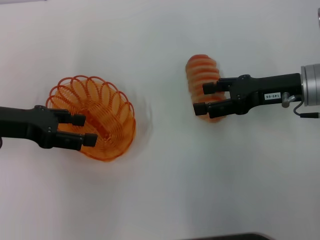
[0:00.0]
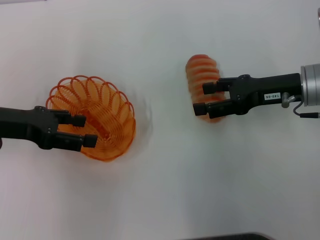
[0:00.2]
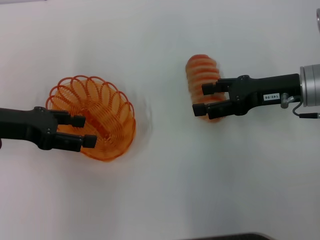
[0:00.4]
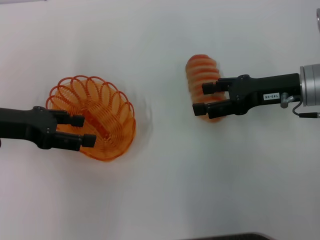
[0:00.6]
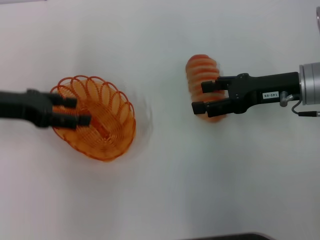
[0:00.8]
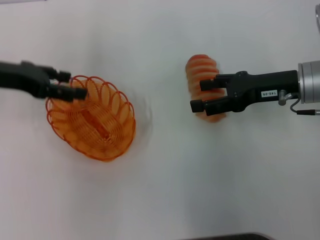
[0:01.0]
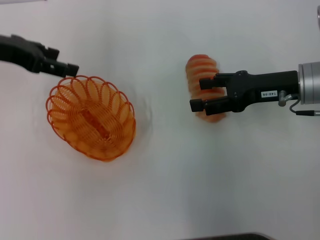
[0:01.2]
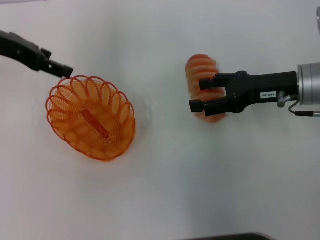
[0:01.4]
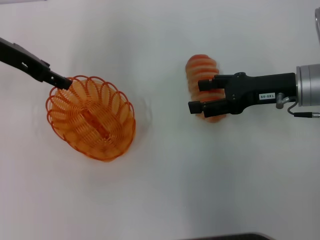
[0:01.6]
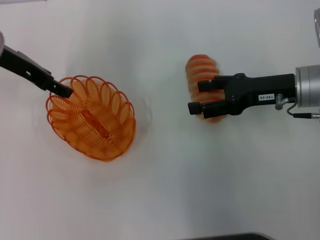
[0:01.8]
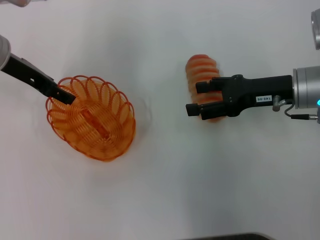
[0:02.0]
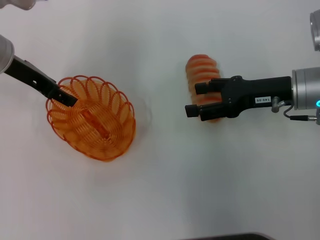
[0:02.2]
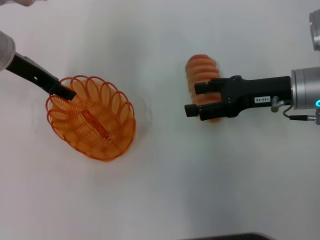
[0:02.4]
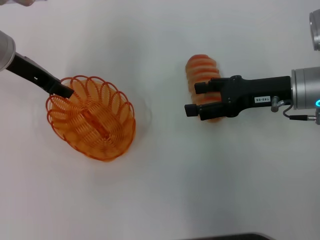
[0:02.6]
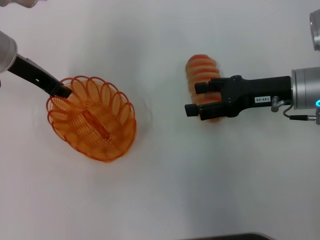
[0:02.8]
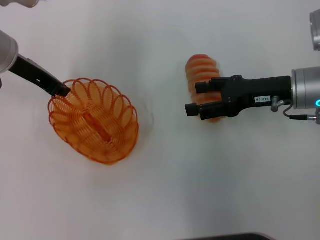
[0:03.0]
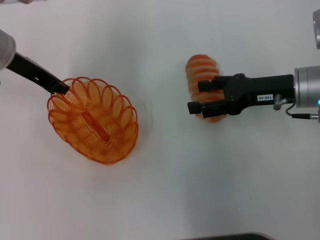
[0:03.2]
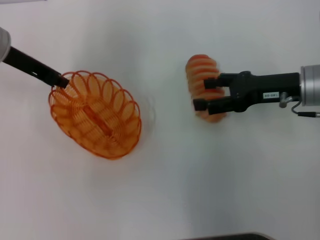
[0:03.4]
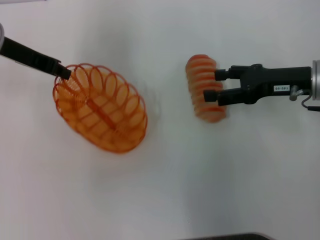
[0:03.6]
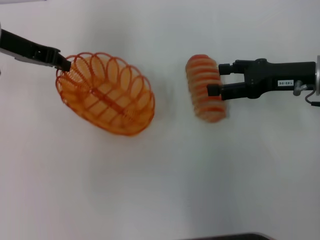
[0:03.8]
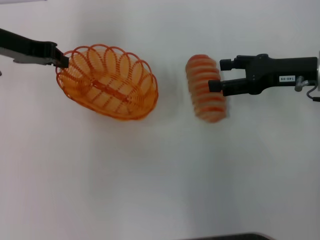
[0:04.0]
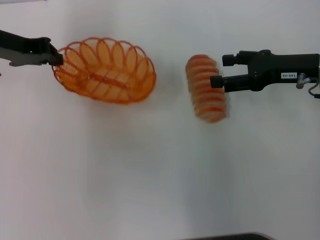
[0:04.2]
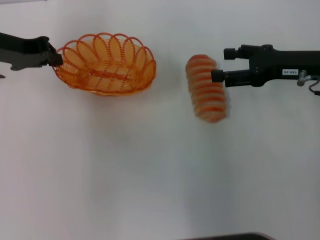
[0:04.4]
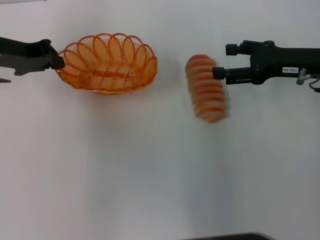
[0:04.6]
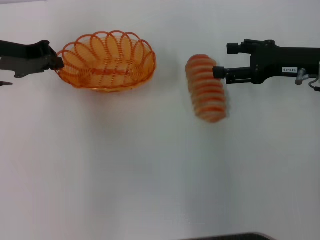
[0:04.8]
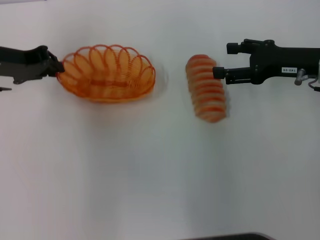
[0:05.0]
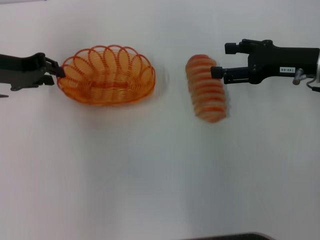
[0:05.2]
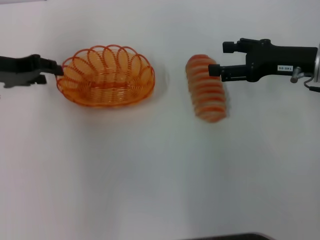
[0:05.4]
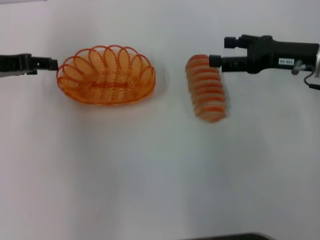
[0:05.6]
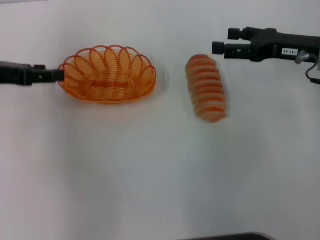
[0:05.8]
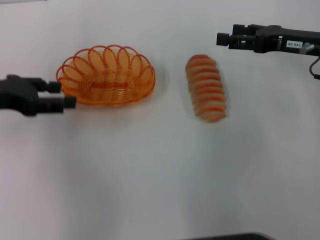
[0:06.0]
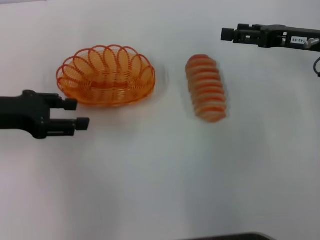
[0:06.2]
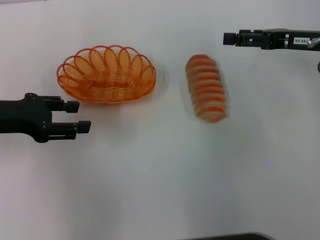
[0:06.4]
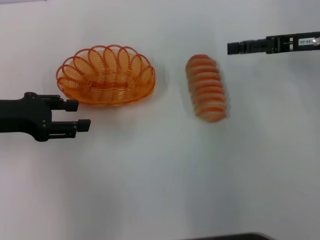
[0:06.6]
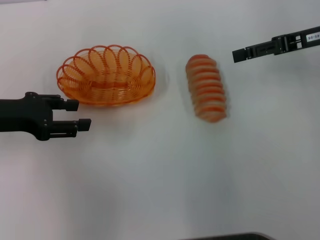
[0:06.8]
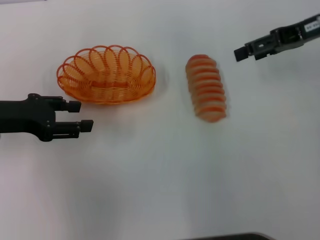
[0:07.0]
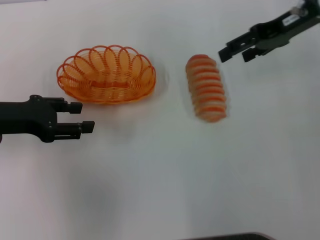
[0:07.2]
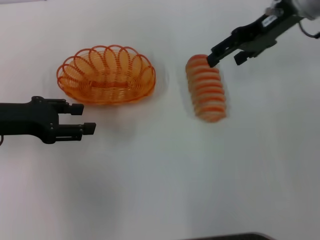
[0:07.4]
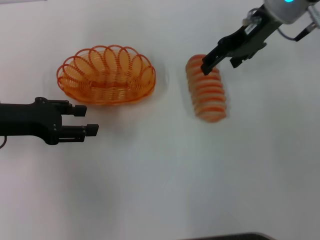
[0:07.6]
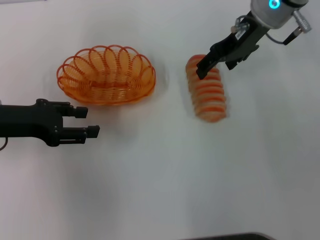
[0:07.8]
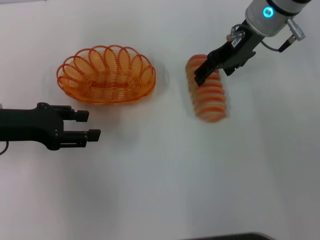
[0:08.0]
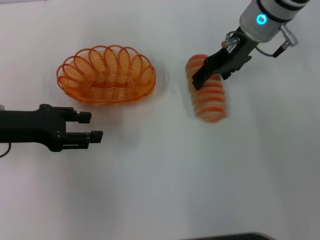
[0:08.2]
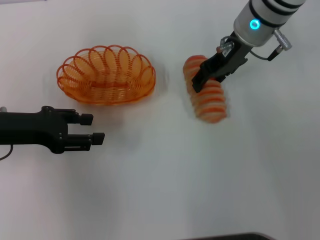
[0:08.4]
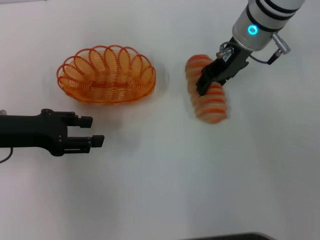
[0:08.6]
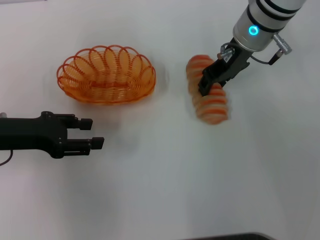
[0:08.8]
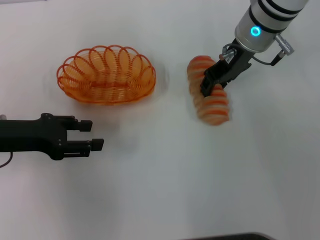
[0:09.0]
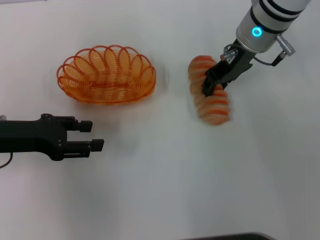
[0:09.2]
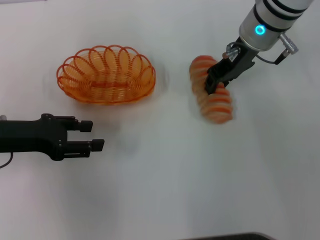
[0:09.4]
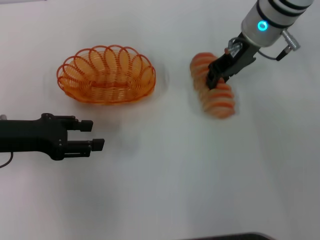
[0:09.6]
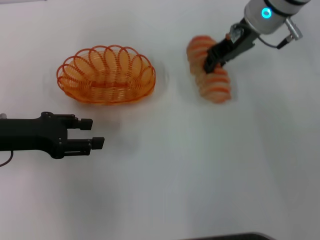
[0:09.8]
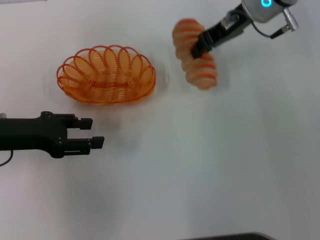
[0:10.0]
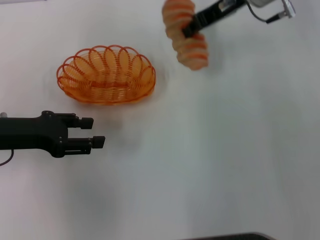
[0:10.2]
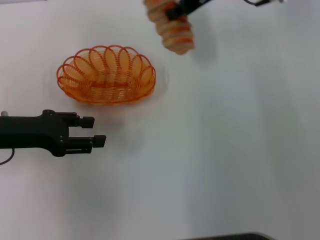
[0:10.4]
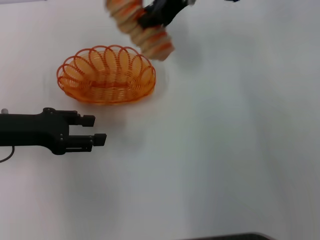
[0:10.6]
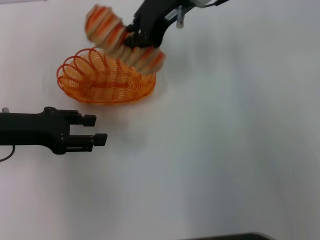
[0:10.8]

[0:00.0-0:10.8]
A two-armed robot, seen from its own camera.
Step, 0.0 to 3.6 s: Pick up the basket with the left gripper.
Step, 3.8 to 6.0 s: Place the basket in the center of view with the left gripper.
Step, 6.2 to 9.6 s: Pick up the long bread with the right gripper.
0.0 to 1.6 s: The left gripper moves forward and upward, roughly 10 cm.
1.6 to 3.0 s: The left gripper closes up.
4.6 to 6.2 s: The left gripper moves backward, roughly 10 cm, and opens its fingers.
6.2 to 7.8 s: The right gripper is displaced to the left, forward and upward by about 15 cm.
7.8 to 9.2 s: The right gripper closes.
9.2 to 10.8 s: The right gripper heads to the left and upward, covering roughly 10 cm, and closes.

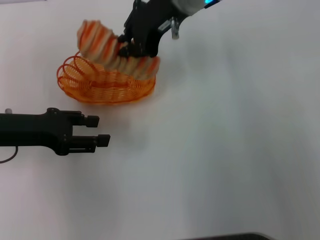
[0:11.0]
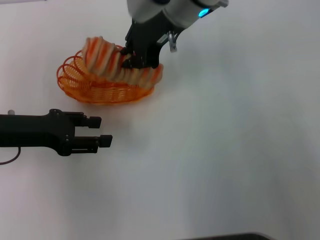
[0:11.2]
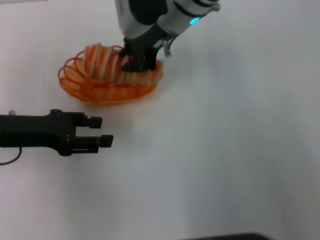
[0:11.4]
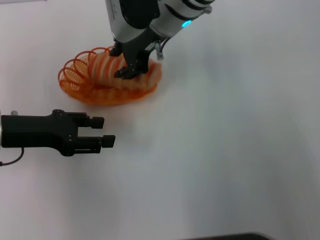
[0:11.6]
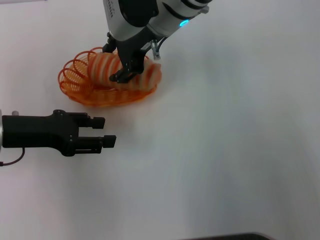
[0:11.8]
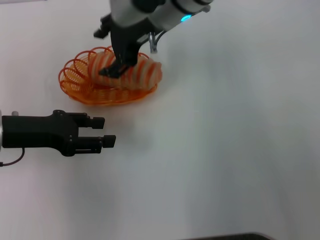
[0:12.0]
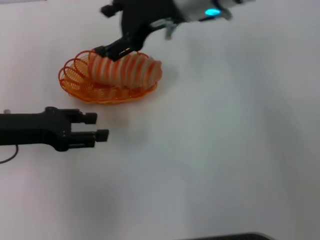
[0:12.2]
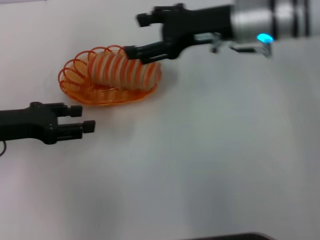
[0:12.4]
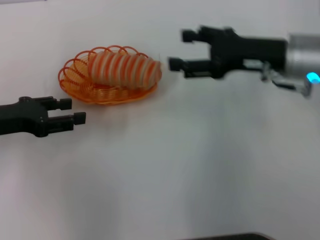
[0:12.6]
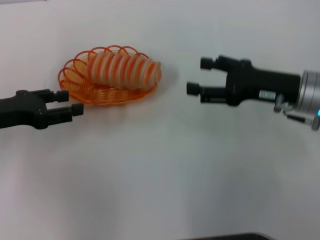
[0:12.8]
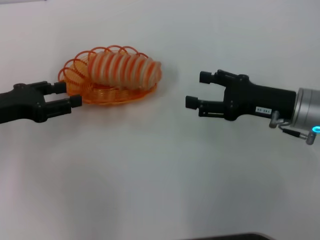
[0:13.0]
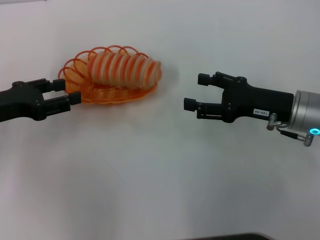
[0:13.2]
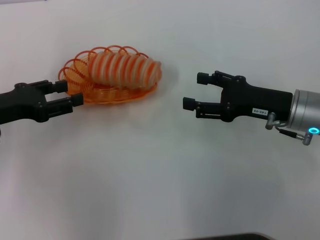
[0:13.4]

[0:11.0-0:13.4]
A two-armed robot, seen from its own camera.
Step, 11.0 to 12.4 s: Place the long bread into the basket with the right gripper.
11.0 to 12.2 s: The right gripper opens up.
12.2 to 13.4 s: The right gripper is displaced to the right, downward and backward by some 25 cm.

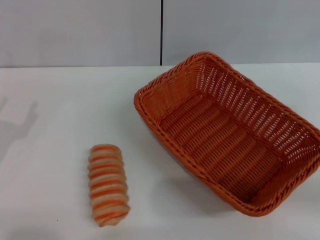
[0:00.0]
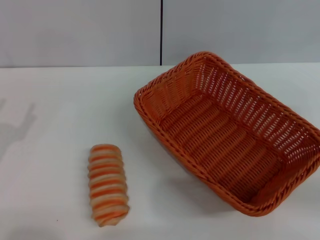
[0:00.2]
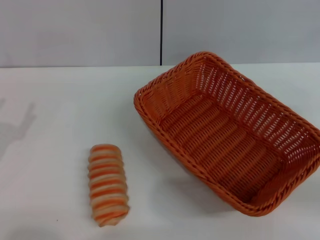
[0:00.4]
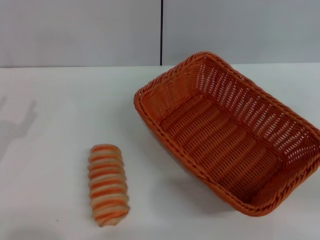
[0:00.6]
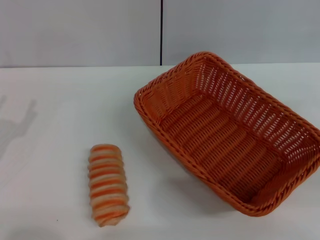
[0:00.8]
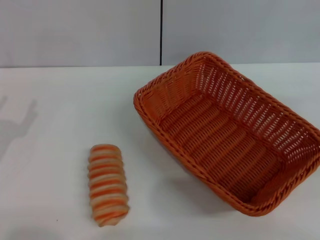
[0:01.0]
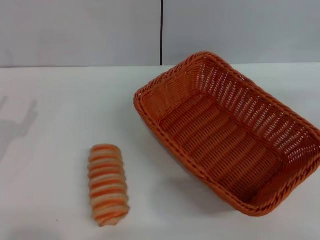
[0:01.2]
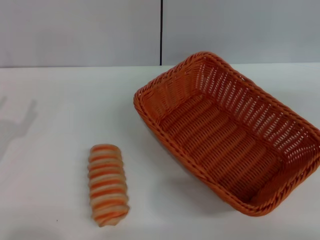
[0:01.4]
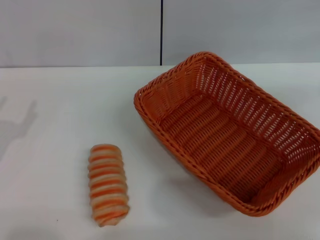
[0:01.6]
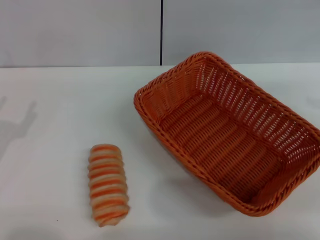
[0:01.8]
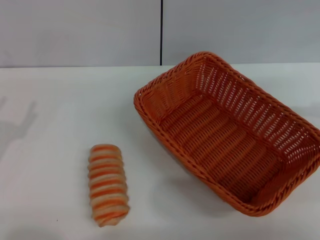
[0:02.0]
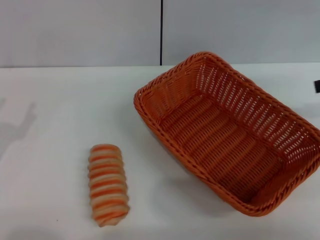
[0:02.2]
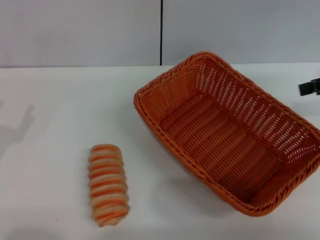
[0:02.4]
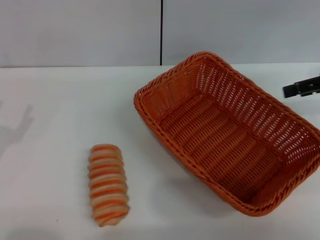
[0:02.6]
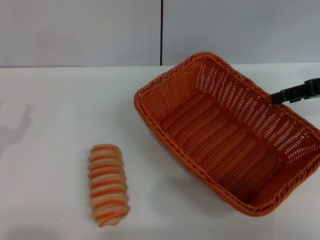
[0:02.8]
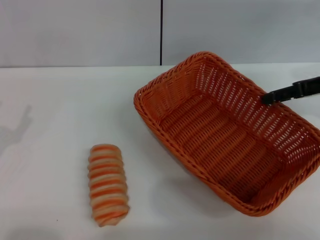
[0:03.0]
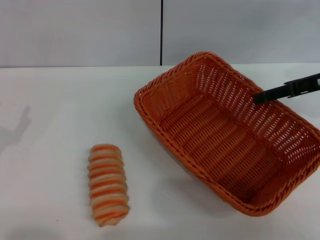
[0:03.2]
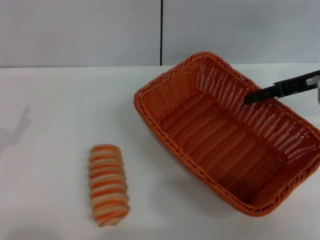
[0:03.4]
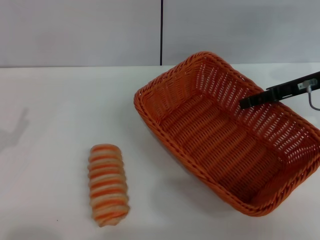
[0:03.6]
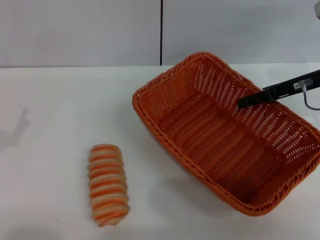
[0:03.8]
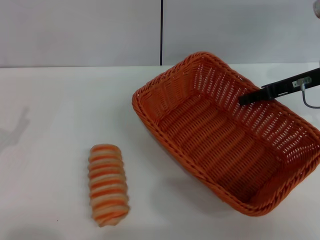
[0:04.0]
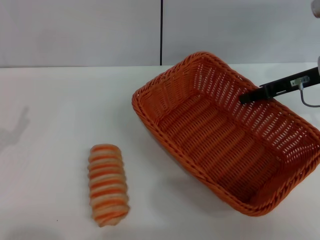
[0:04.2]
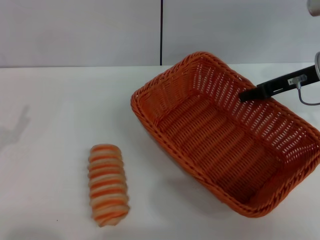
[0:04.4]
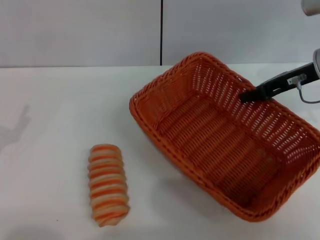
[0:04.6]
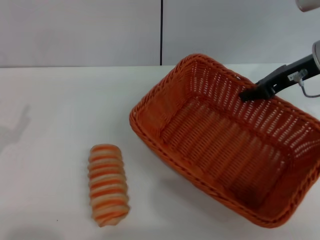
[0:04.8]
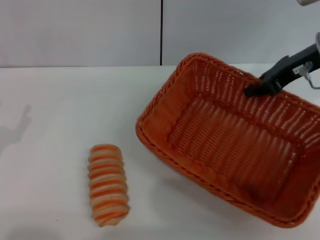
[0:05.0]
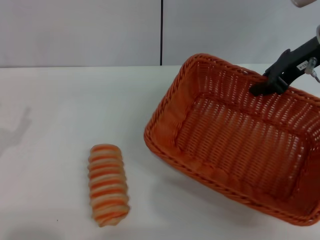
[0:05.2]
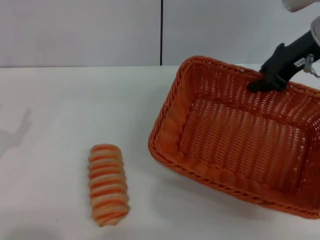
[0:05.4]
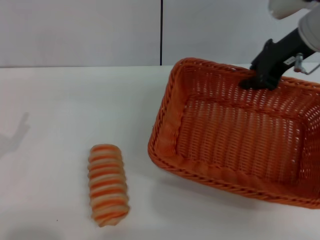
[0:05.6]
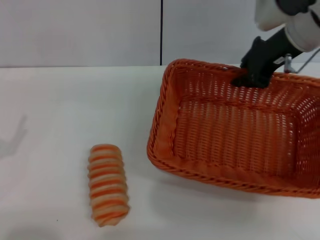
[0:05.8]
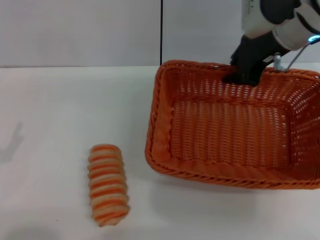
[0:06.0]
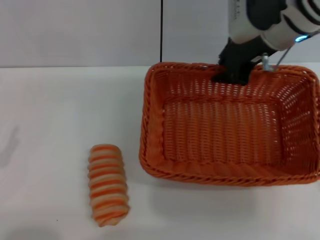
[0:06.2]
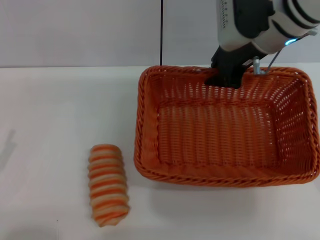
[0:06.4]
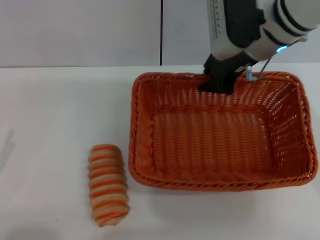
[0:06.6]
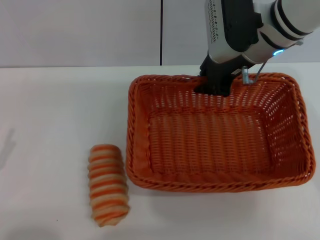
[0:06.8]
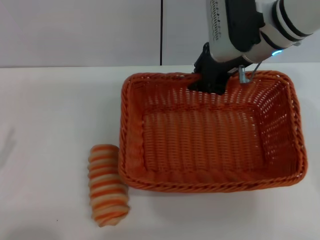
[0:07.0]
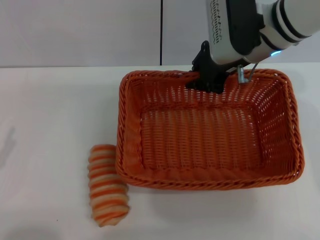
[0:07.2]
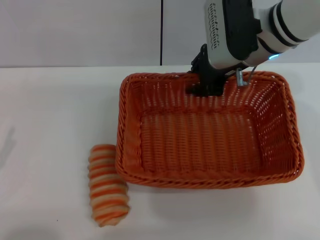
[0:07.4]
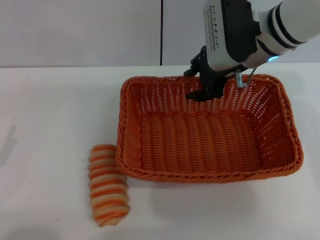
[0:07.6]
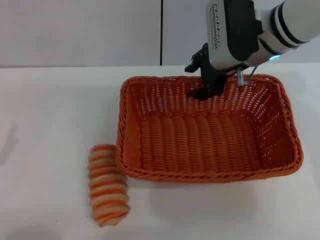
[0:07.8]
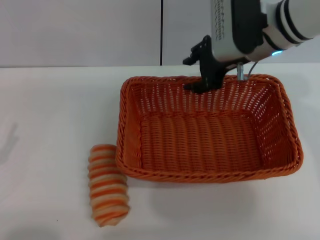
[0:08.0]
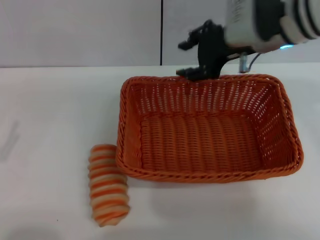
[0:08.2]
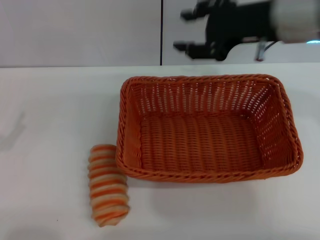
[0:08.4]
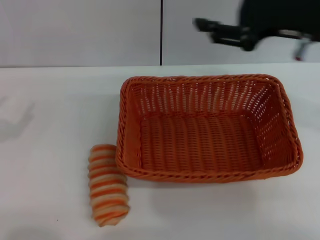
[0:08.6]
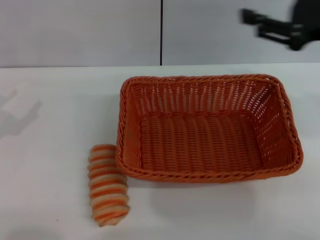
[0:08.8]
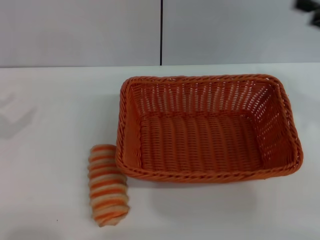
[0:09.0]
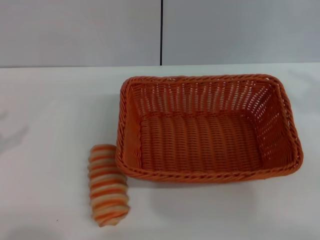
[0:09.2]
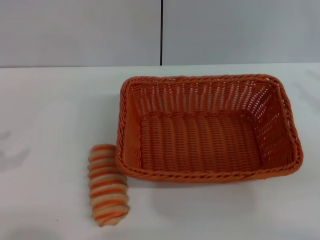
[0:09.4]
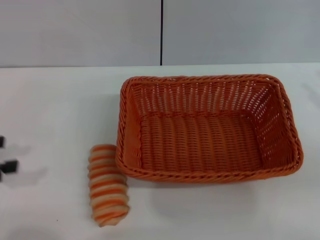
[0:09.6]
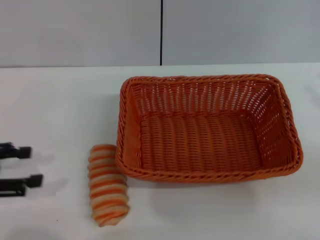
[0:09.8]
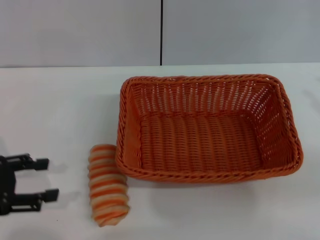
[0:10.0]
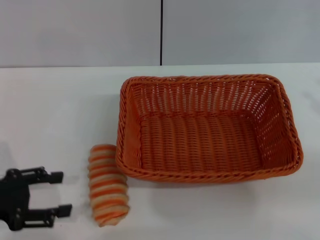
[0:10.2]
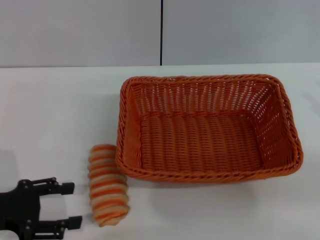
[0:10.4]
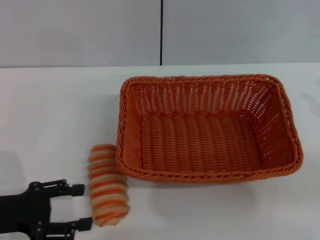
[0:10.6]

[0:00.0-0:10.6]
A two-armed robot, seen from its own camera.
Step, 0.0 to 5.2 s: Pick up the light basket with the right gripper.
Step, 5.4 to 7.8 s: Place the light basket in the center of view with the right gripper.
1.6 to 3.0 s: The right gripper travels to the left, downward and forward by approximately 15 cm.
3.0 to 4.6 s: The right gripper travels to the left by roughly 5 cm, and closes its fingers.
4.6 to 6.0 s: The right gripper heads to the left and upward, covering about 10 cm.
6.0 to 7.6 s: The right gripper changes place by about 5 cm.
7.6 to 9.0 s: The right gripper goes about 25 cm to the right and backward, and opens; the left gripper heads forward and upward, covering about 10 cm.
9.0 to 10.6 s: The left gripper shifts roughly 5 cm to the right. Meanwhile the right gripper shifts about 10 cm to the right and backward.
